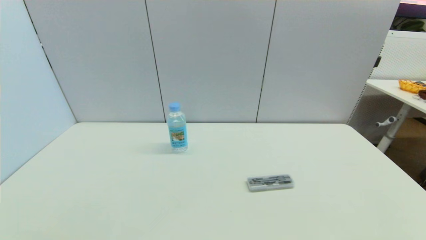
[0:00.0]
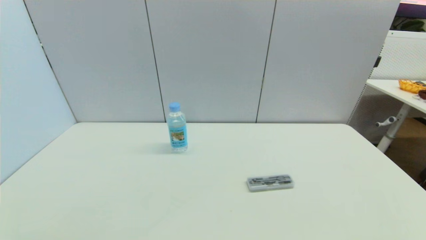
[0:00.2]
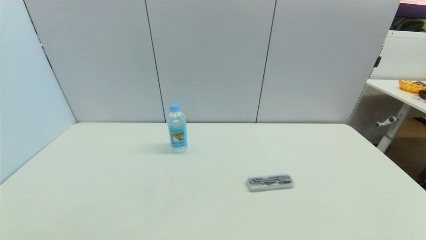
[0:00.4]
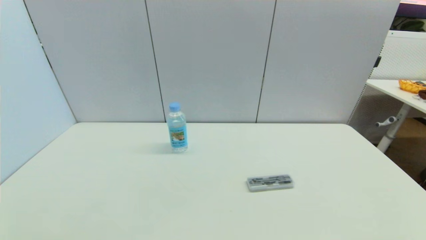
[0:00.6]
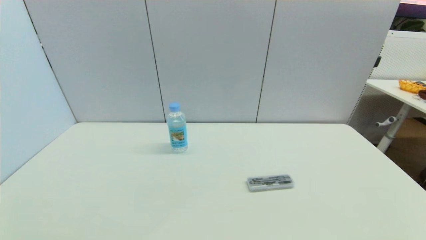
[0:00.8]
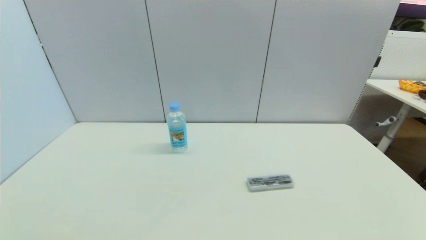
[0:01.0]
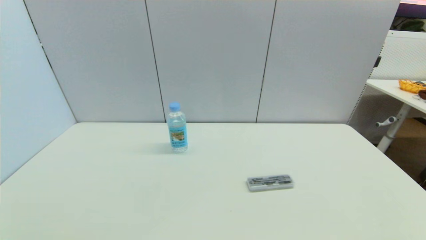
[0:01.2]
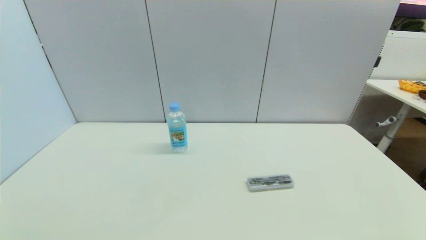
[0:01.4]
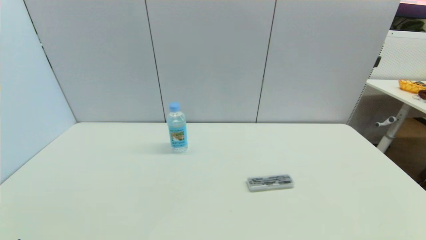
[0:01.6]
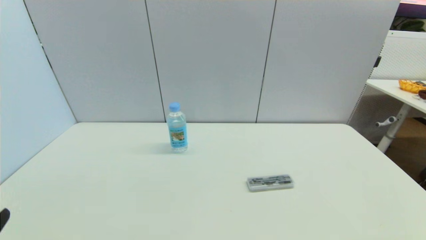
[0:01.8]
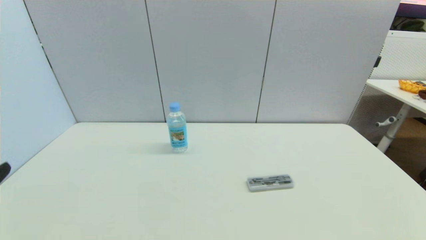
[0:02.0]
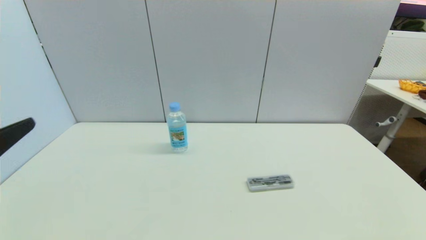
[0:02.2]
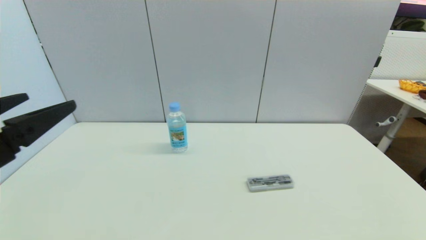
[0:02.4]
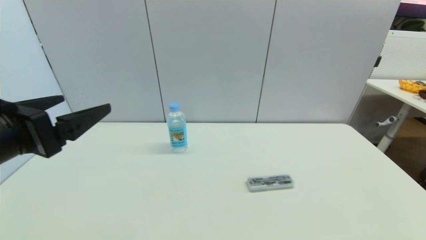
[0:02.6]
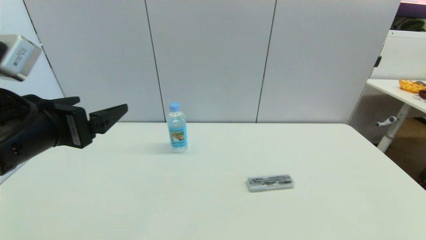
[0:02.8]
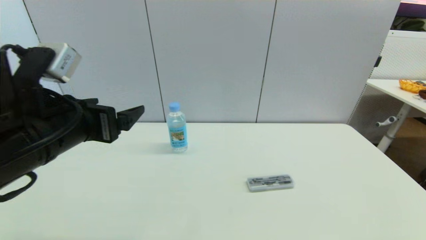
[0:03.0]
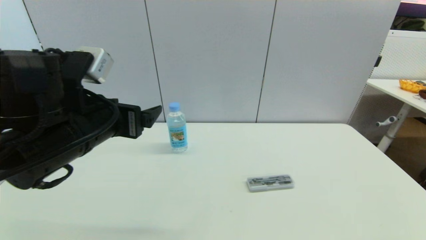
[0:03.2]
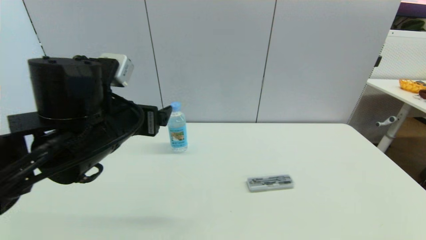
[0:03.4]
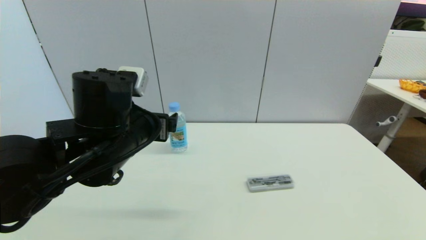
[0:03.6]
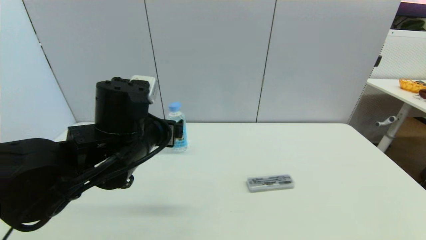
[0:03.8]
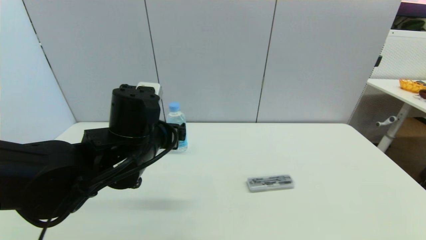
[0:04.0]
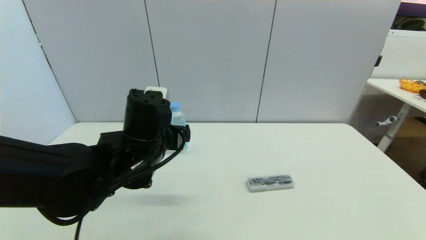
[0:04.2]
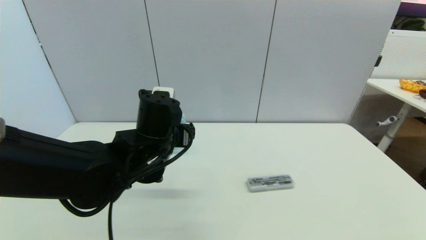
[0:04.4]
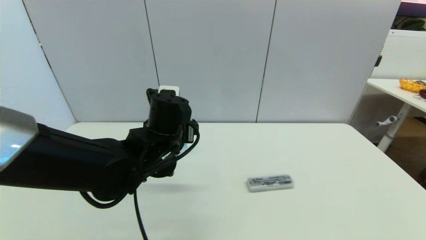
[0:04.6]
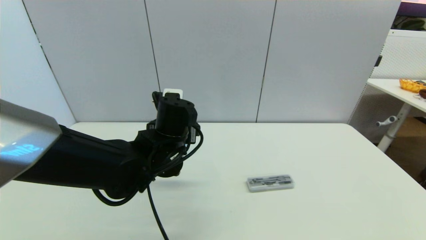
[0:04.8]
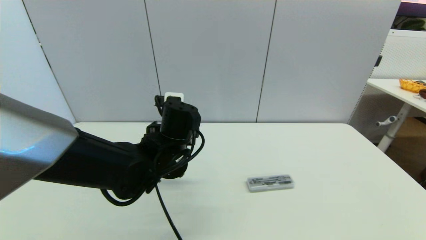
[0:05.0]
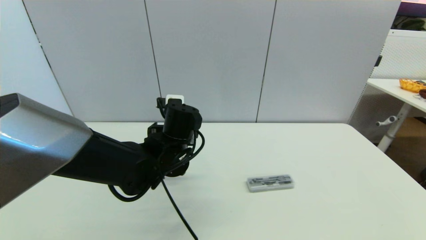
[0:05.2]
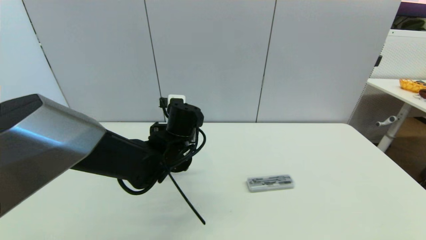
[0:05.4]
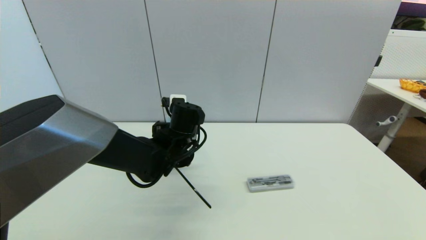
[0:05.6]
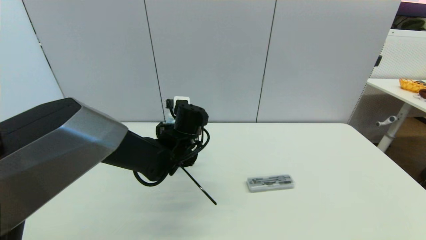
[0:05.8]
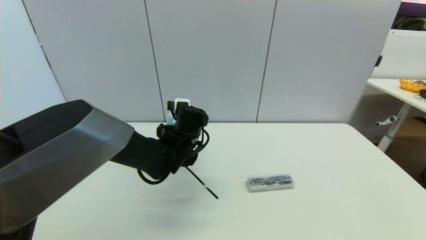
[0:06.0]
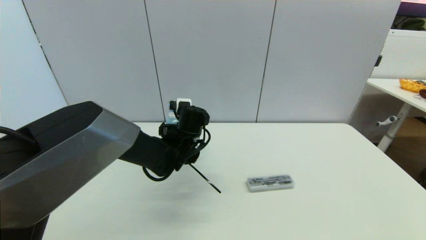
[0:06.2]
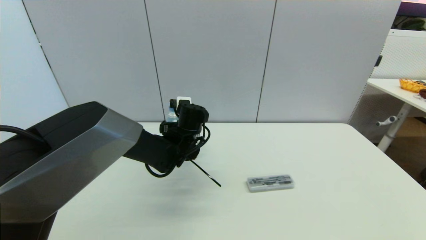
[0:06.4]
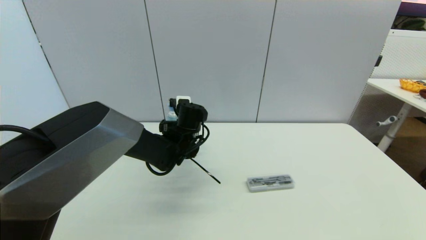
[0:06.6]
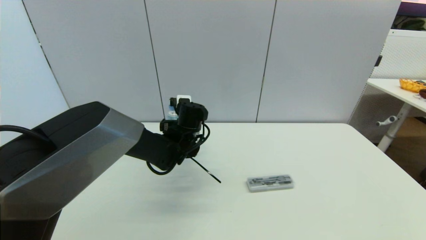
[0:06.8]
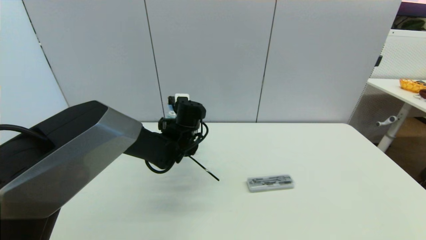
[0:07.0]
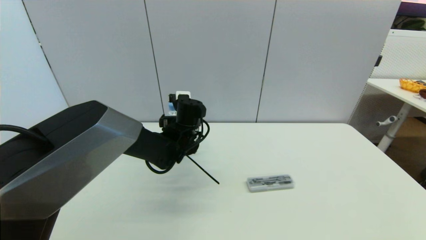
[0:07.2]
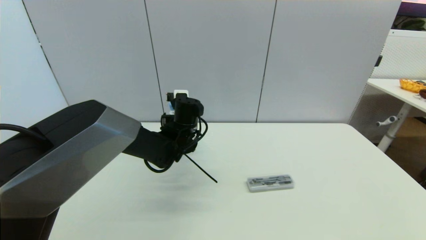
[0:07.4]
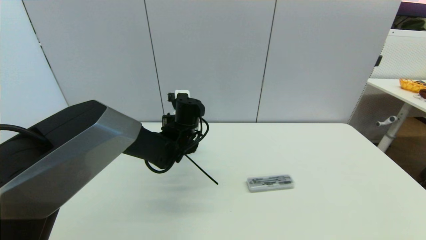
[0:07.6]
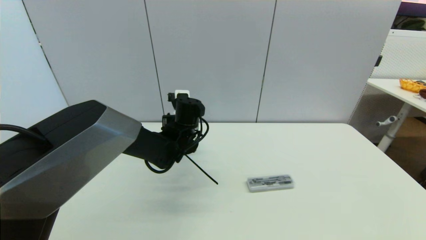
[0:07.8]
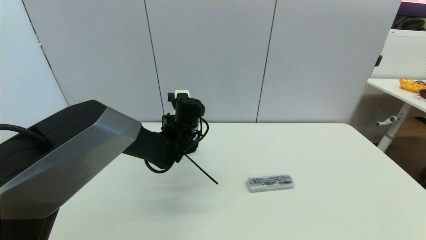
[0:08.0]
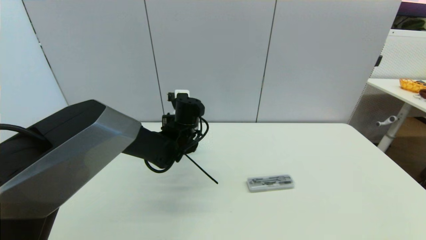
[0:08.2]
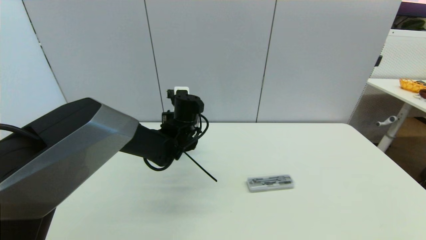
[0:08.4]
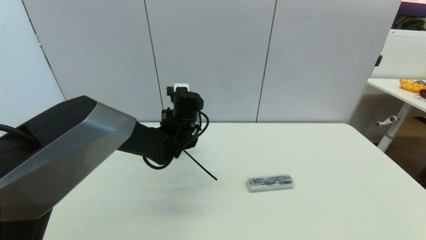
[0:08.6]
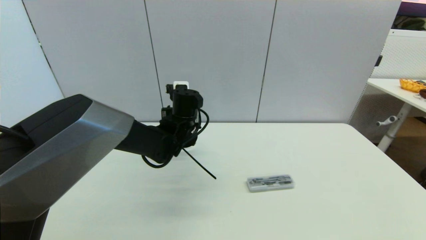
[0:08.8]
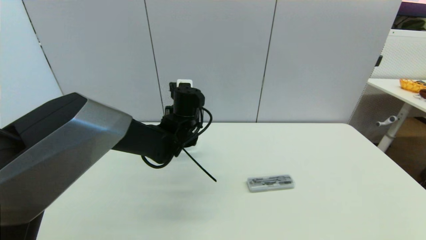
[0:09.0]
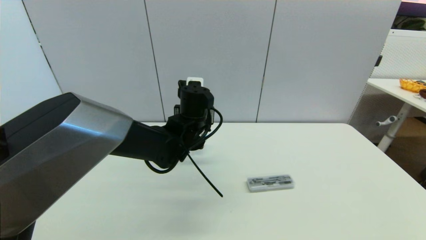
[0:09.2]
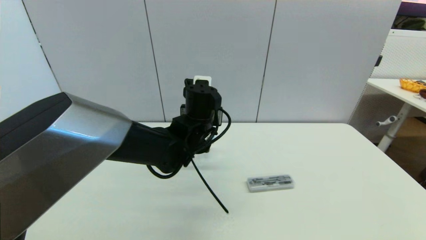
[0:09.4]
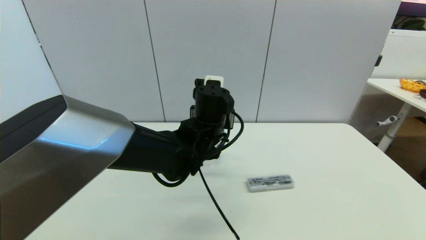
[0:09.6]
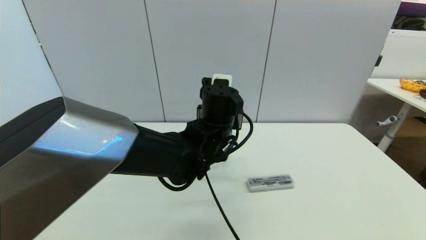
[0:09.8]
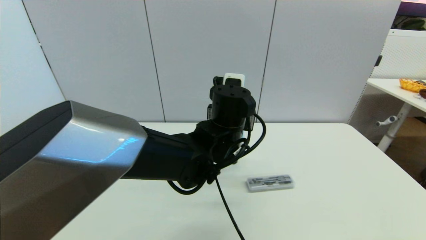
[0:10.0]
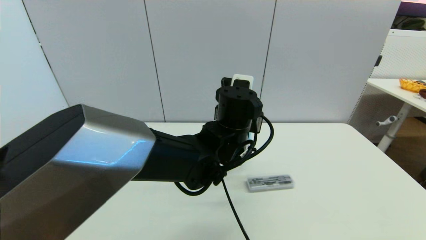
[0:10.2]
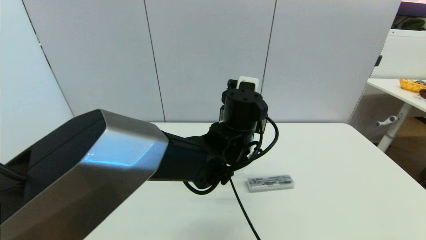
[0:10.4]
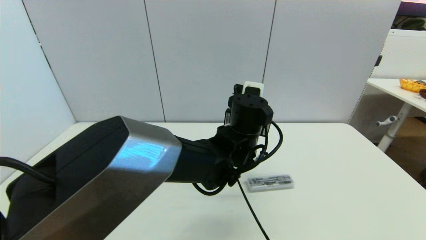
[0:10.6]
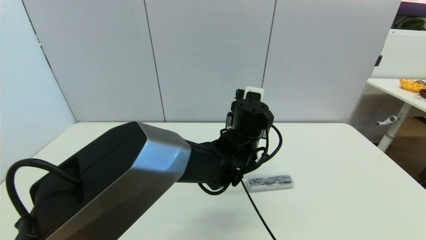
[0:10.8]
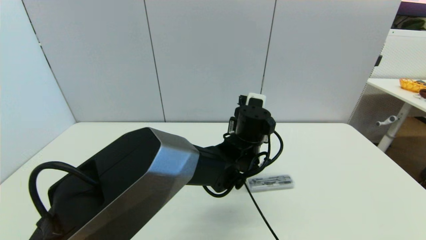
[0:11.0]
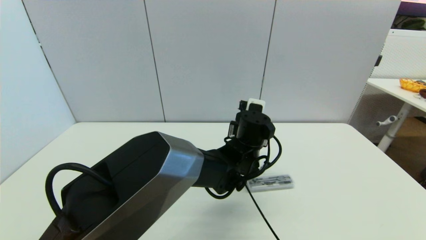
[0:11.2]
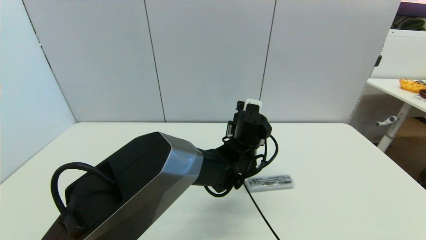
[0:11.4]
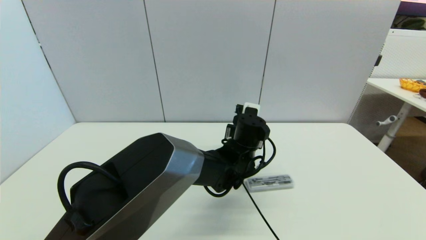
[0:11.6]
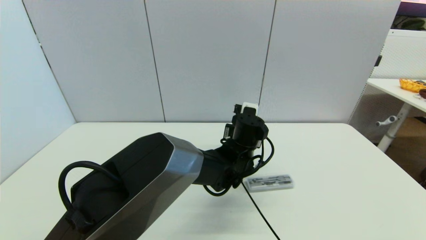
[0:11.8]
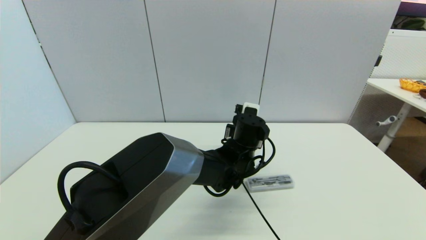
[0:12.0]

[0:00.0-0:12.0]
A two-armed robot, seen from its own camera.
Step, 0:01.8 to 0:07.4: Grasp the soda water with left gripper.
0:01.6 to 0:03.0: The left gripper shifts some 25 cm forward, upward and to the right.
0:03.0 to 0:04.4: The left gripper goes about 15 cm to the right, forward and downward.
0:04.4 to 0:06.0: The left gripper goes about 10 cm forward and downward.
0:06.0 to 0:07.6: The left gripper closes.
0:07.6 to 0:09.0: The grippers make only small movements.
0:09.0 to 0:10.4: The left gripper goes about 15 cm to the right and backward.
0:10.4 to 0:12.0: The left gripper goes some 5 cm downward.

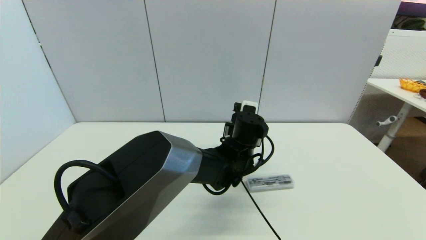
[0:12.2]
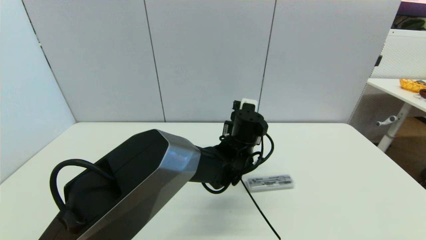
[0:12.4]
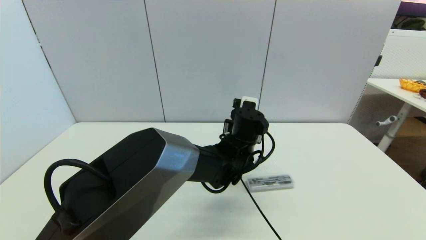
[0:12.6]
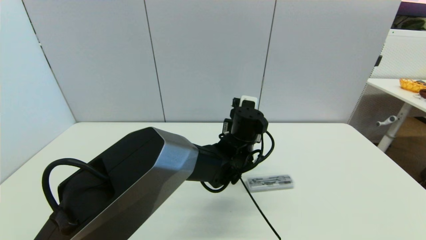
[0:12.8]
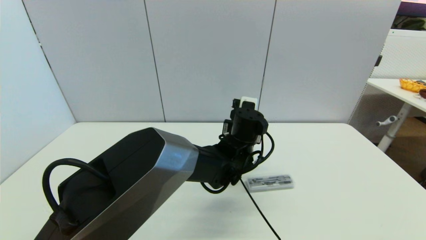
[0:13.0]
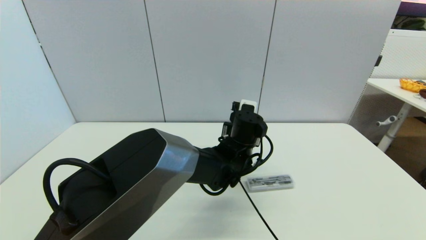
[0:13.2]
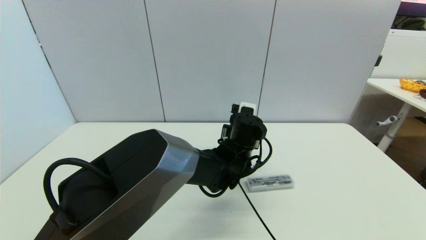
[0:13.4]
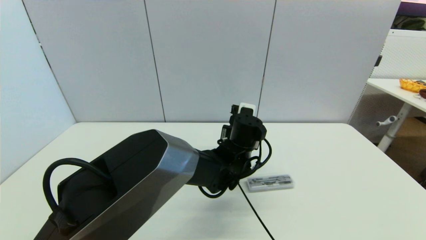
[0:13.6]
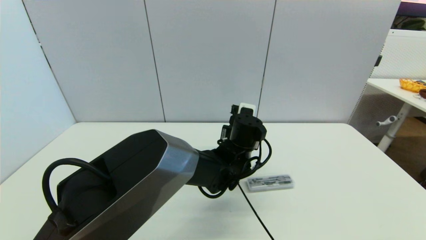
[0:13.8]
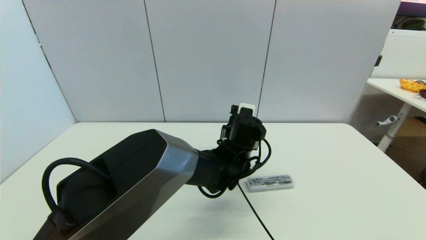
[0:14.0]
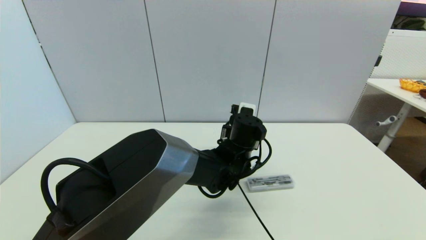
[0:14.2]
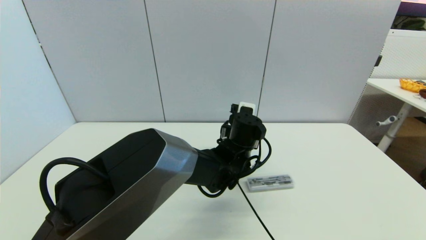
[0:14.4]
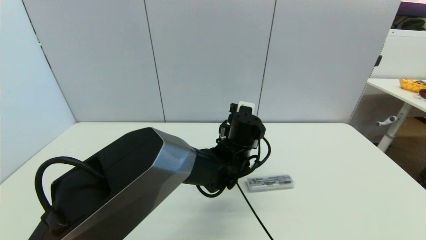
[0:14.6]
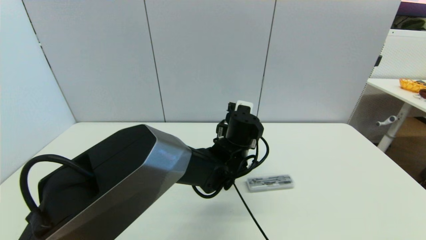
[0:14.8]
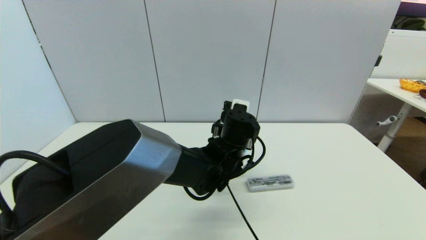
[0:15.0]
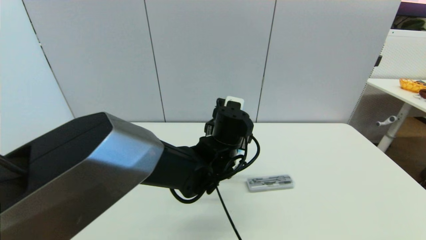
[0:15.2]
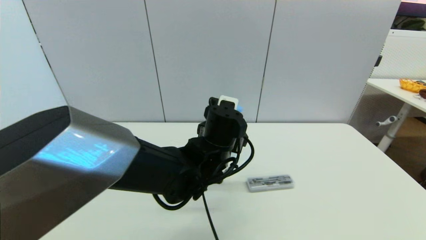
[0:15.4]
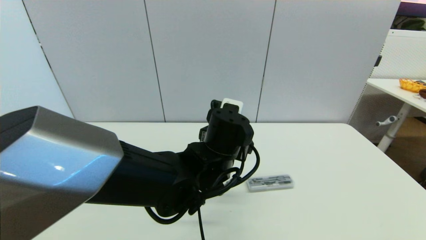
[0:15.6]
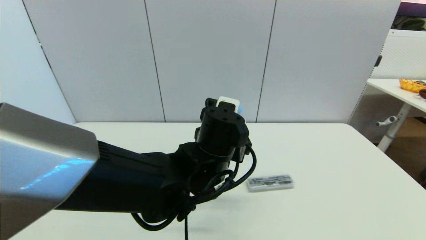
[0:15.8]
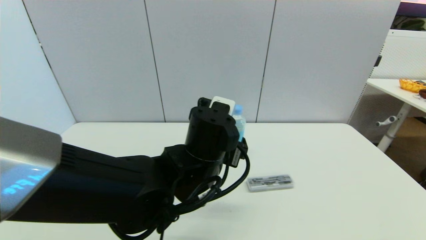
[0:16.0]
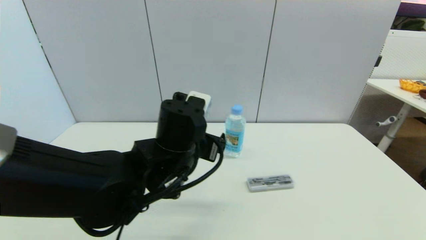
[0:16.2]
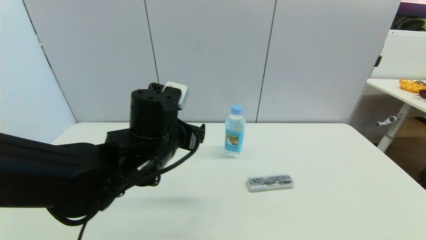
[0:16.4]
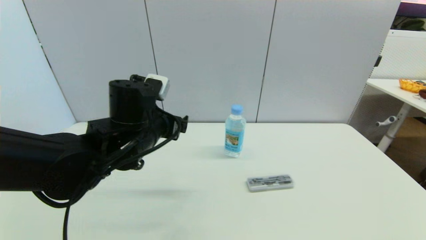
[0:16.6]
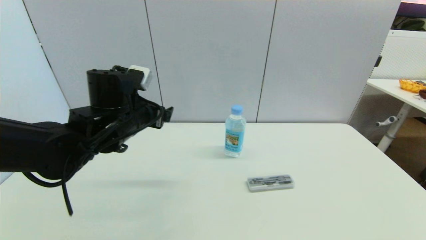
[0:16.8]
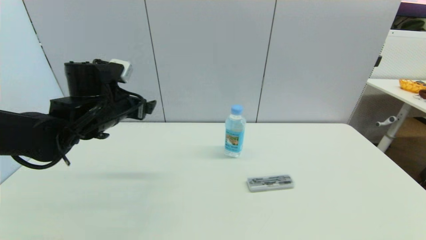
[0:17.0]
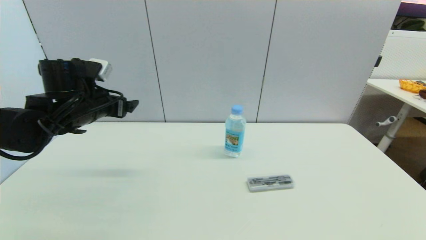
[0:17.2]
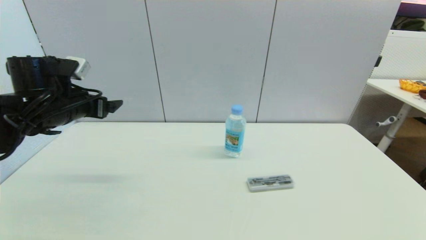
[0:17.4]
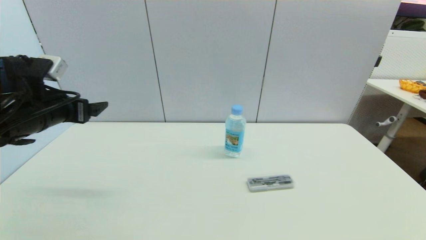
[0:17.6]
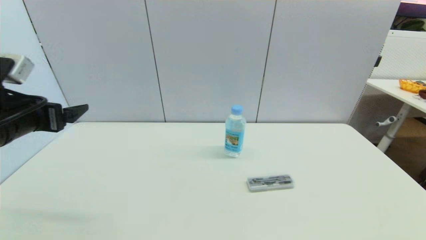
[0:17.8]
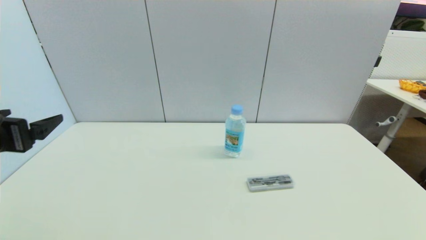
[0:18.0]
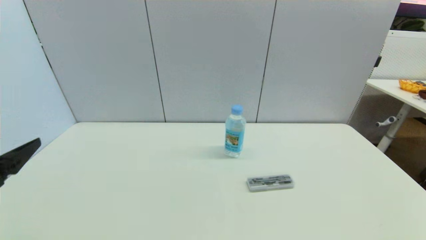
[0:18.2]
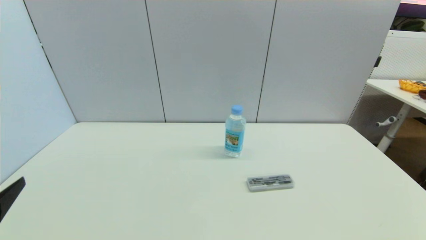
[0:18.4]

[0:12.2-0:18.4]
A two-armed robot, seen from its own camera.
Step, 0:12.2 to 0:14.6: Place the soda water on the table with left gripper.
0:12.2 to 0:13.8: Both grippers stay about where they are.
0:13.8 to 0:15.4: The left gripper travels backward and to the left by some 10 cm, and opens up.
0:15.4 to 0:16.8: The left gripper travels to the left by roughly 20 cm.
0:16.8 to 0:18.4: The left gripper shifts about 30 cm backward and to the left.
